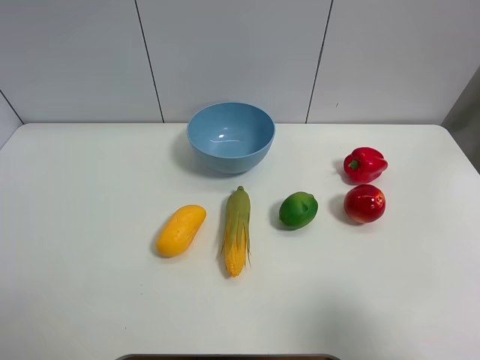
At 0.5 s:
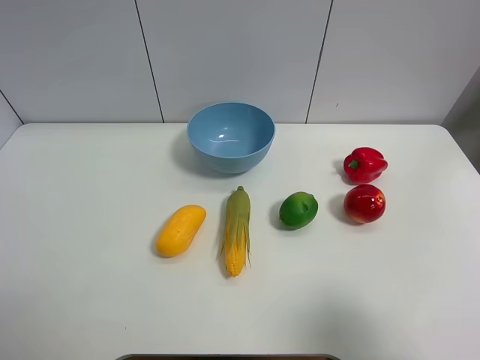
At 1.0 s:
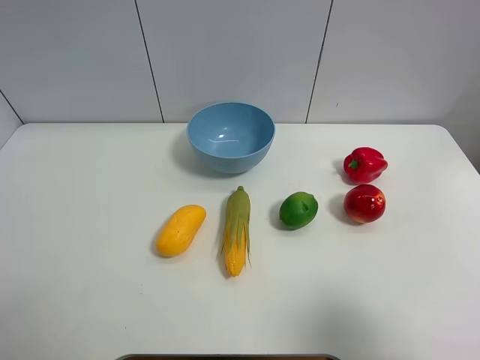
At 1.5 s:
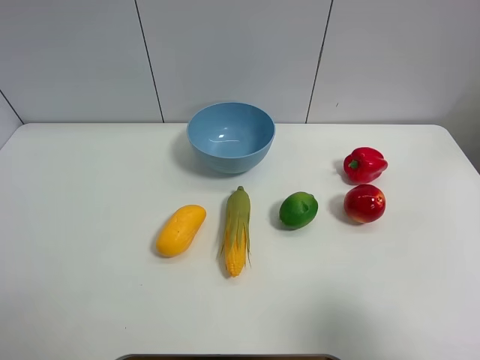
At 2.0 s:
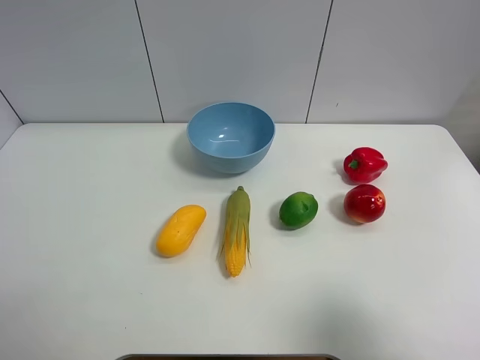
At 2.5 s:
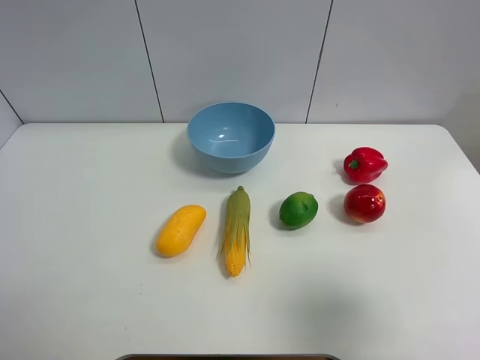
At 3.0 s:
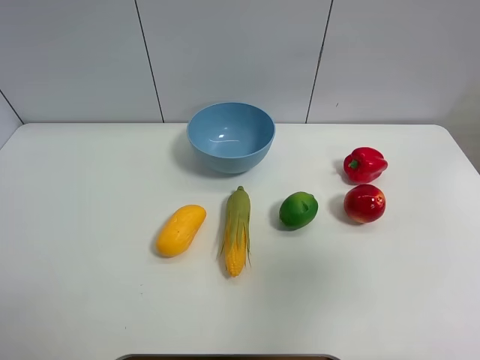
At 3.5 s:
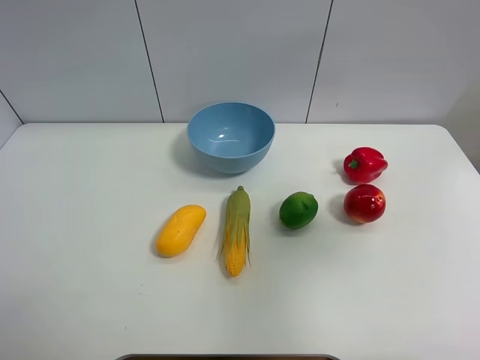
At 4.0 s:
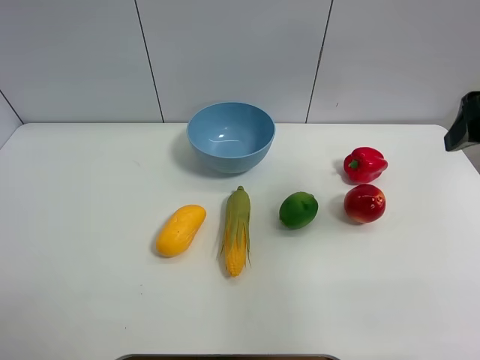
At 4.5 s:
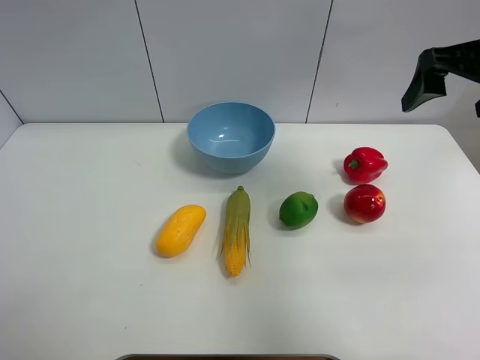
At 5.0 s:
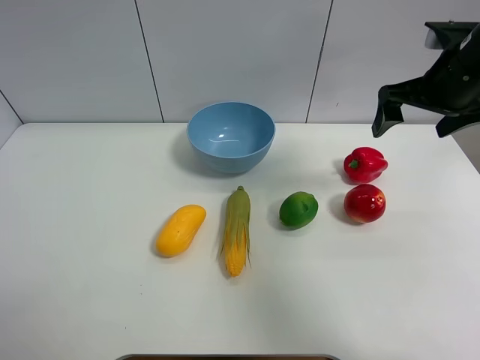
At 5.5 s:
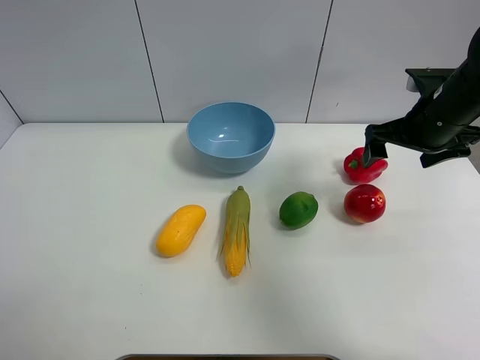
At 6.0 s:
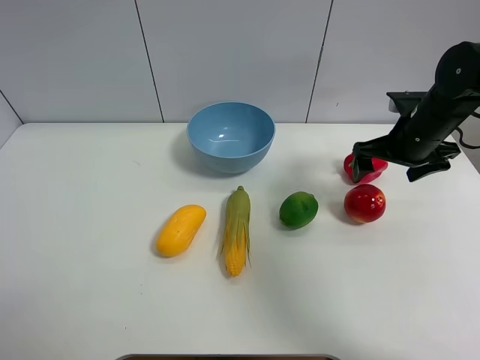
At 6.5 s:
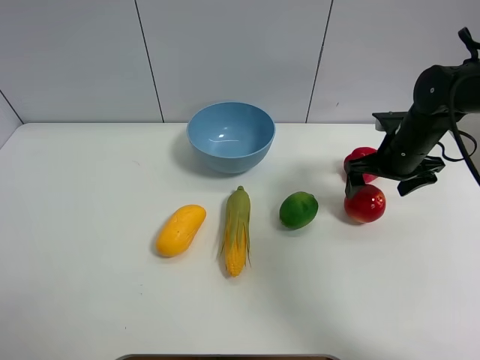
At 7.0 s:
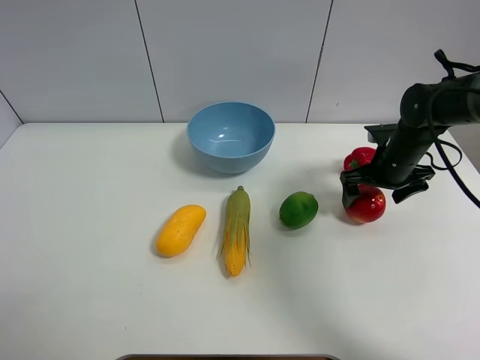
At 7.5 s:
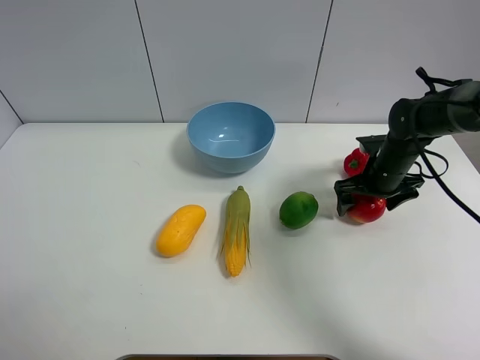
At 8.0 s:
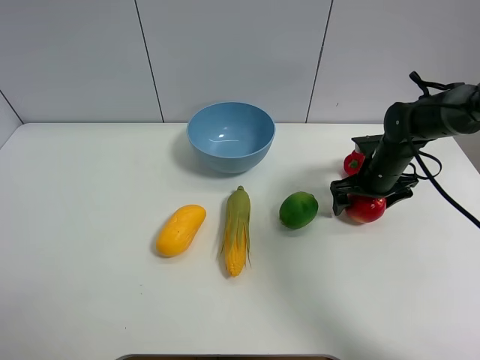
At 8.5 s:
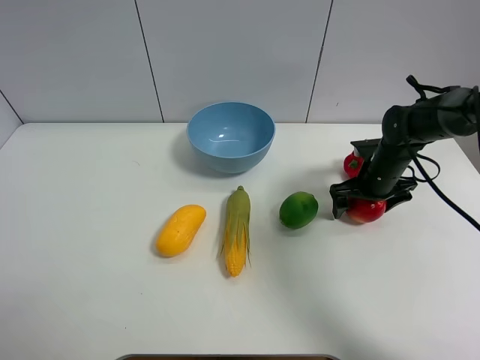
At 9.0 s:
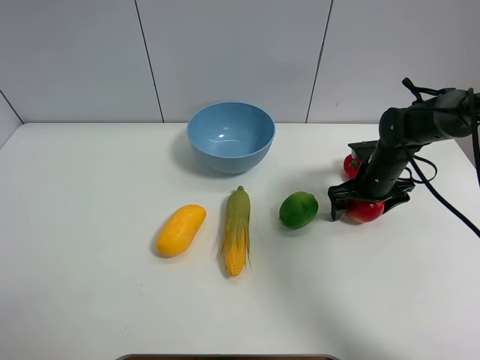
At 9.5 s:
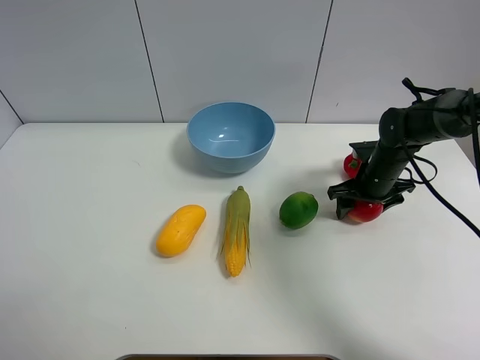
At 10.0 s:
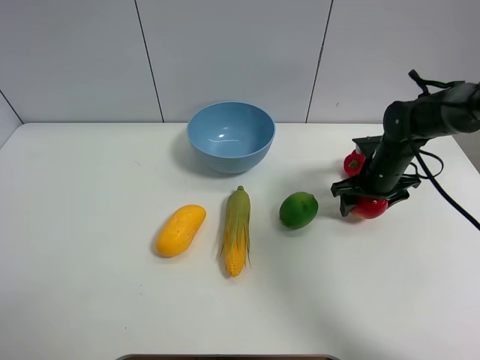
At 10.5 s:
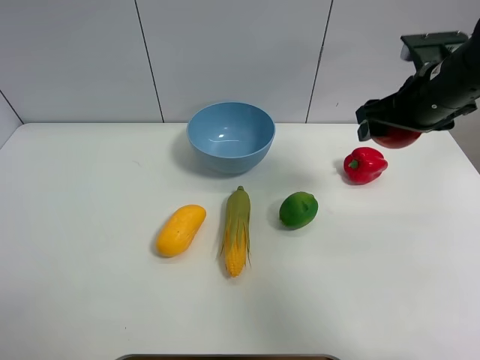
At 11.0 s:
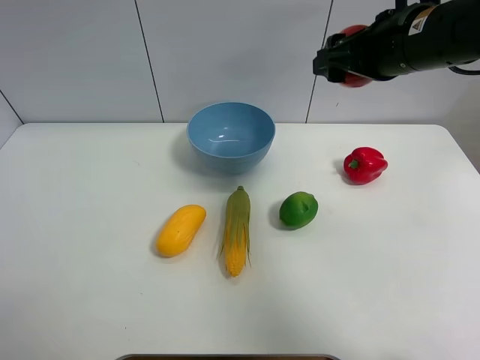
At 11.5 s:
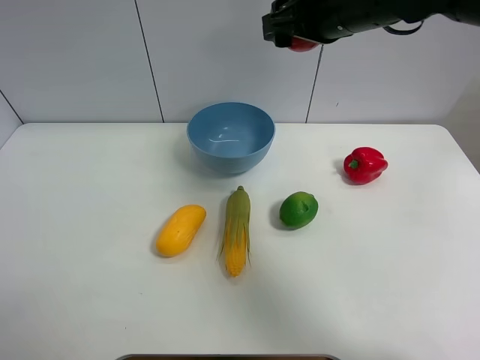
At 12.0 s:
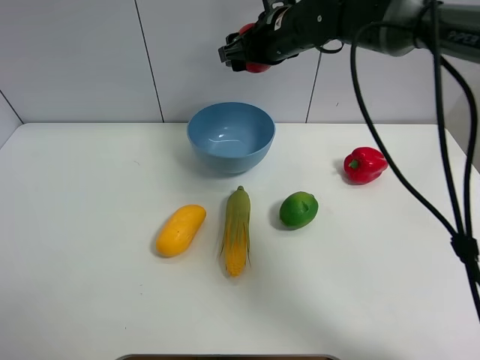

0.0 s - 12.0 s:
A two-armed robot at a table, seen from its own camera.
Task of the whole recording: Put the three fruits on the table into a bowl.
Step, 0.0 s - 9.0 s: Grasp the pomegranate with right gripper.
0.0 s - 2.0 s: The two grippers keep their place.
2.0 s - 4.0 s: The right gripper moves forward, about 20 cm, and opens.
4.0 s - 6.0 s: The right gripper is displaced downward and forward by roughly 20 cm.
6.0 s - 8.0 s: The right gripper travels downward by roughly 10 cm.
8.0 s - 10.0 s: The grippers stay close to where they were, moving slightly.
10.0 s - 12.0 s: The right gripper shifts about 25 cm to the left and upward.

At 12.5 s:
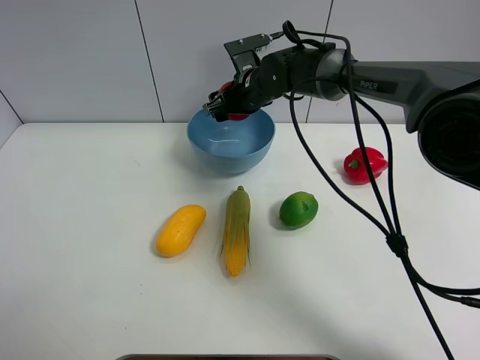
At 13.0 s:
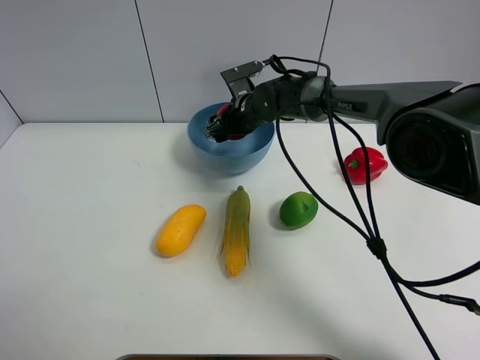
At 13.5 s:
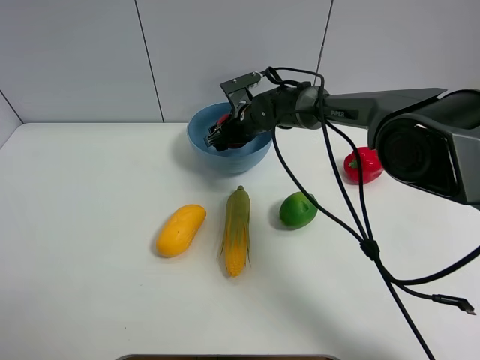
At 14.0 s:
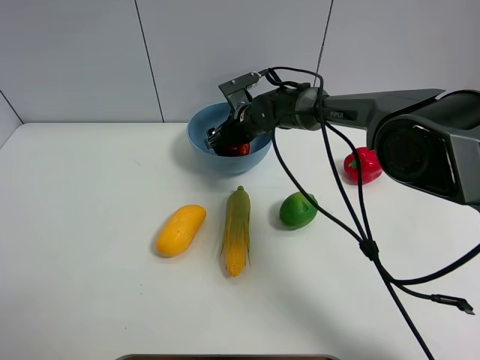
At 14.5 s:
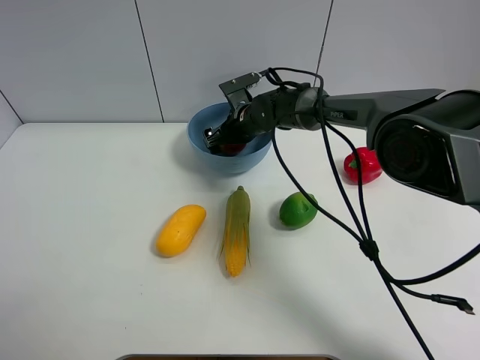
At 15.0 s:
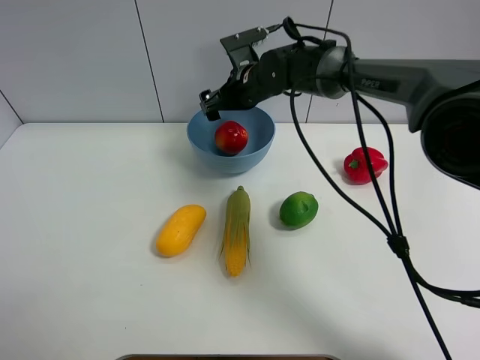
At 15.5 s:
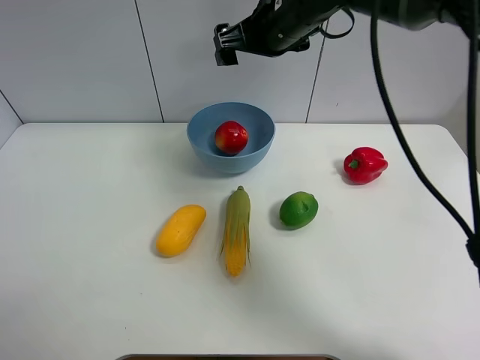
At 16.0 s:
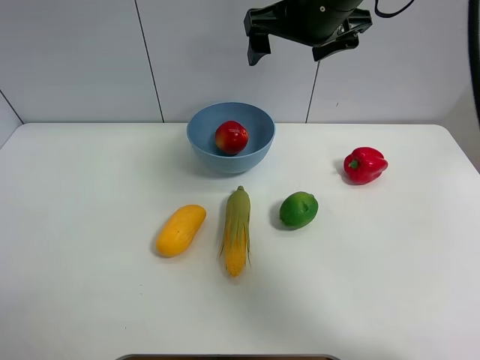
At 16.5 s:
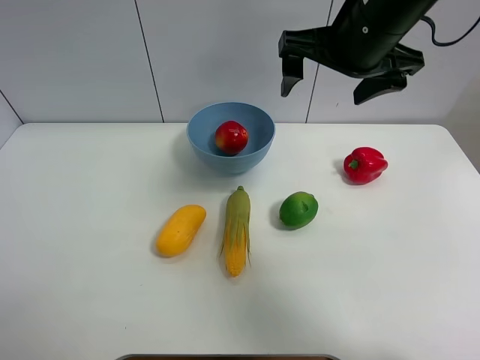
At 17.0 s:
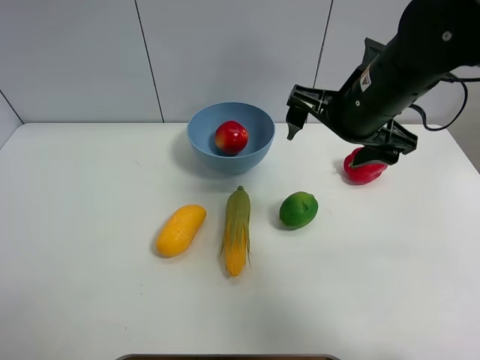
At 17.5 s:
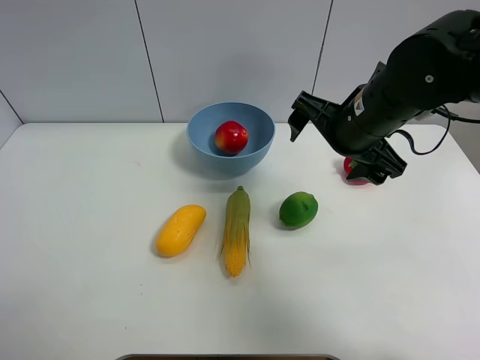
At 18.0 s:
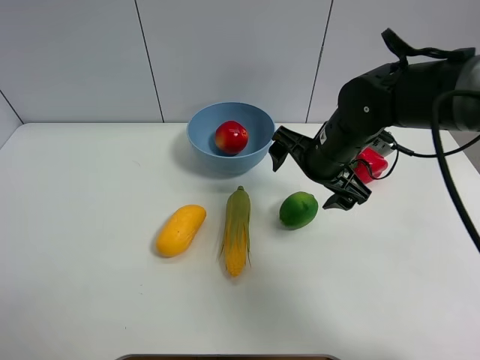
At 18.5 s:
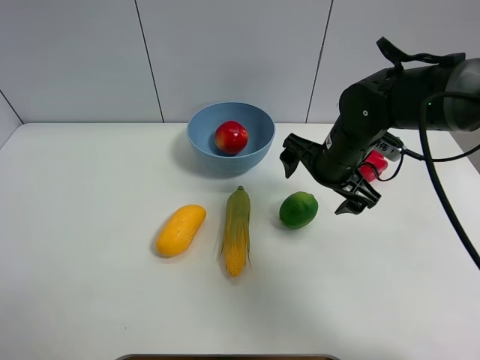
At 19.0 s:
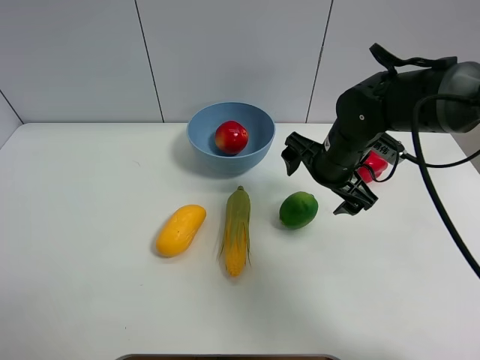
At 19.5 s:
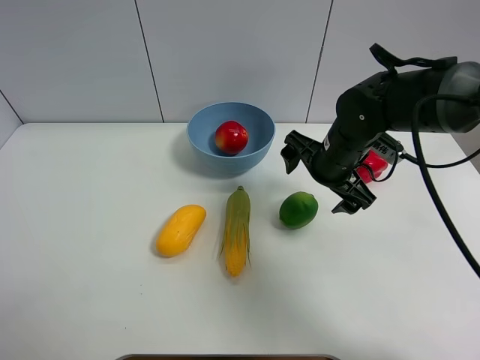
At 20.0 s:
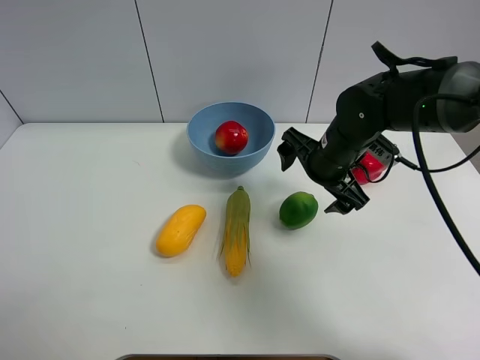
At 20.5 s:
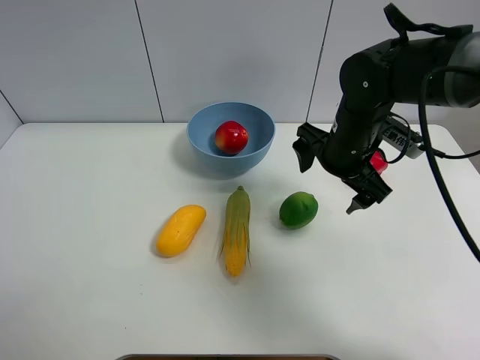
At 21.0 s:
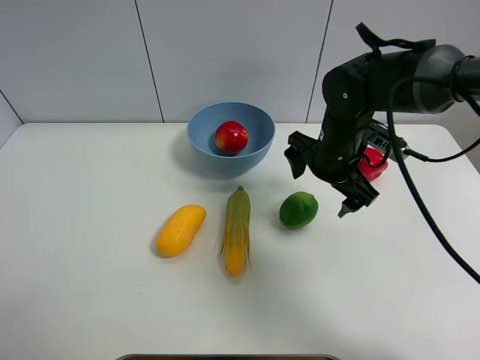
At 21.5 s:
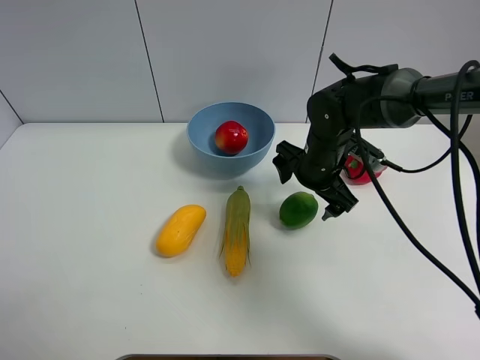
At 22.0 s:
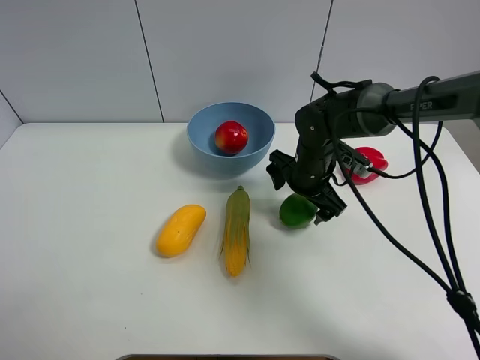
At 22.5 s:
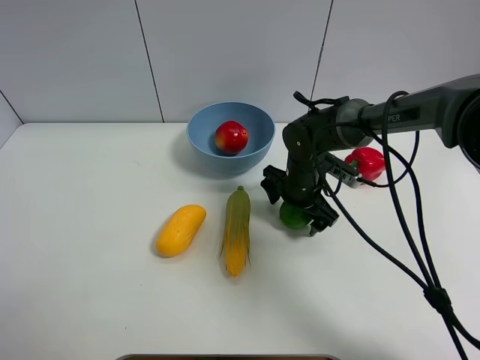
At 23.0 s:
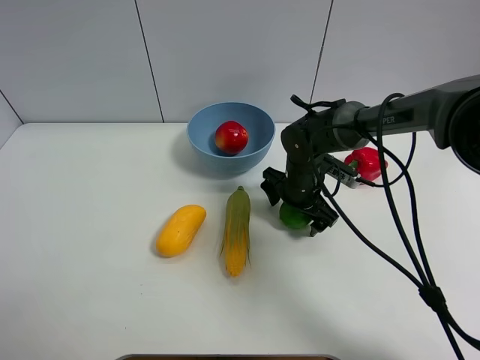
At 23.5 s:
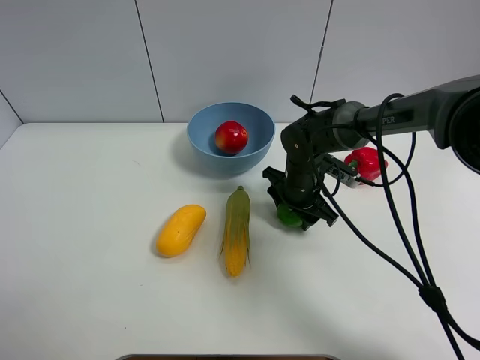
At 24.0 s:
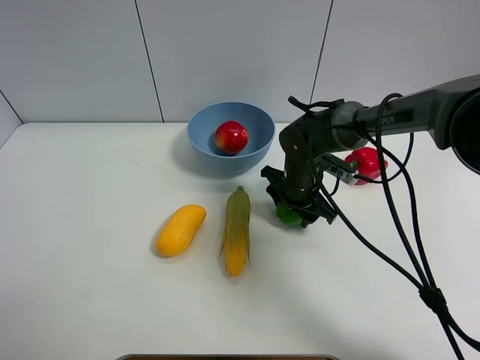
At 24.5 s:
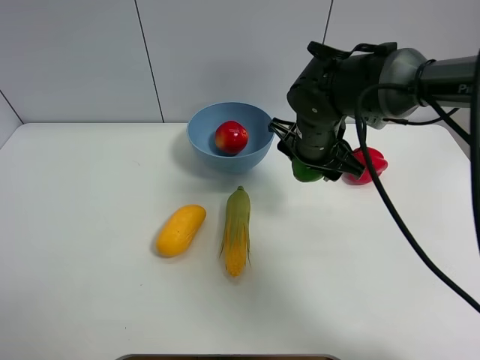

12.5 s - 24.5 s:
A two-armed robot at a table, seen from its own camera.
Task of the whole recording: Put the three fruits on the table into a bowl.
Step, 12.5 s - 14.5 s: Place the pomegranate in the blue bowl with right gripper.
Step, 15.0 s - 23.0 s: Grasp the green lemon with right gripper.
12.5 s - 14.5 s: The right gripper is displaced downward by about 5 cm.
14.5 s - 16.5 s: The right gripper moves upward, backward and to the right, roughly 30 cm.
16.5 s - 18.5 s: The right gripper goes about 15 cm downward.
18.5 s - 20.5 s: The grippers stay close to where they were, moving slightly.
20.5 s - 22.5 s: The right gripper is displaced downward by some 10 cm.
22.5 s - 24.5 s: The right gripper is displaced upward by some 10 cm, and closes up.

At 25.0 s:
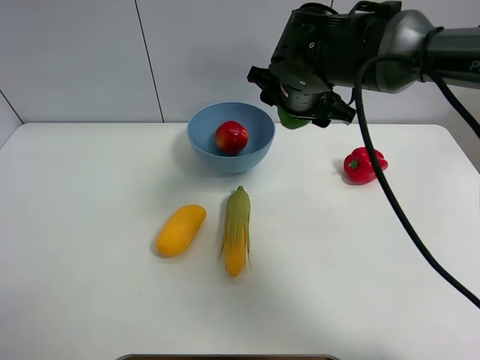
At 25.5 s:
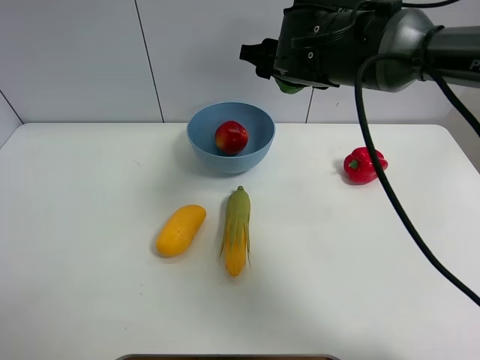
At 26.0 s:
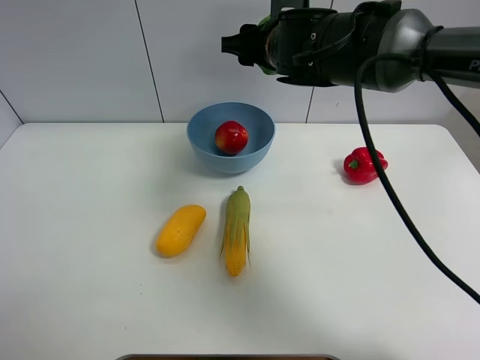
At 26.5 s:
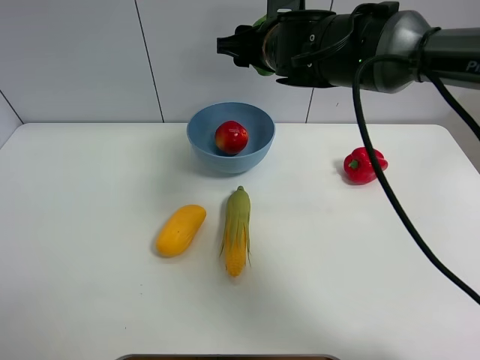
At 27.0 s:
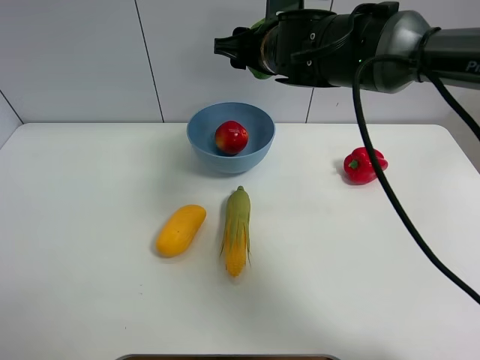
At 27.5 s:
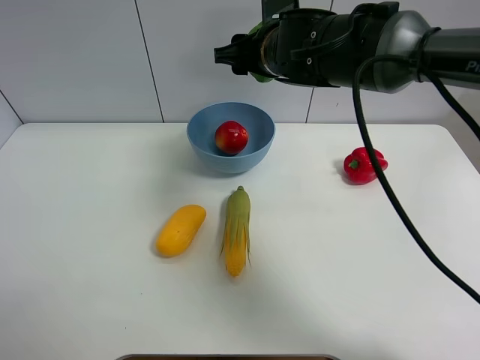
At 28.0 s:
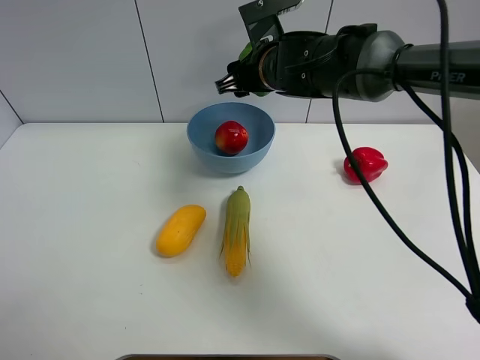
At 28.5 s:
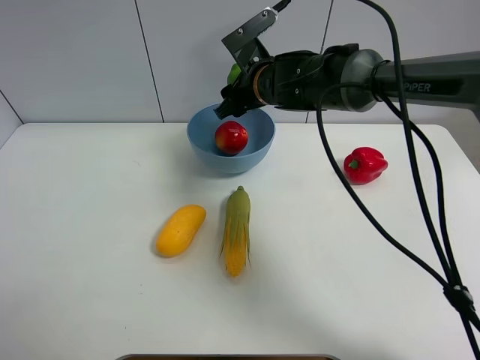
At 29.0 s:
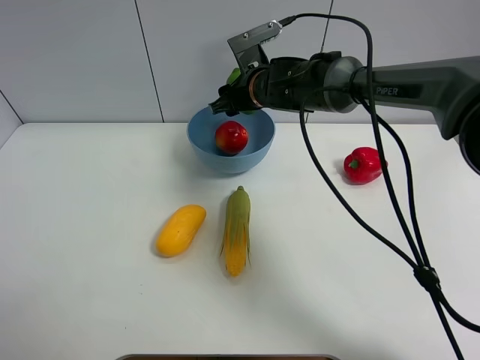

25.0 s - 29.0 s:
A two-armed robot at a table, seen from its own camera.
Task of the whole recording: Put the three fruits on the table into a bowl.
27.0 s - 29.0 s: The right gripper travels downward and forward by about 10 cm.
